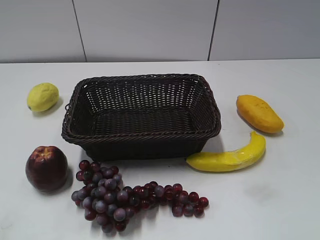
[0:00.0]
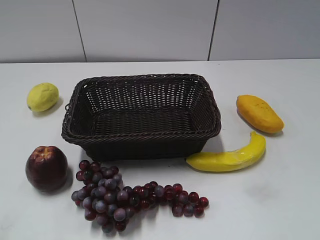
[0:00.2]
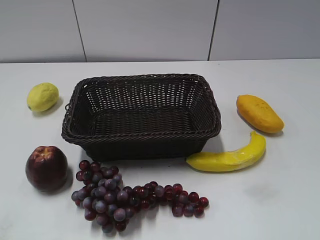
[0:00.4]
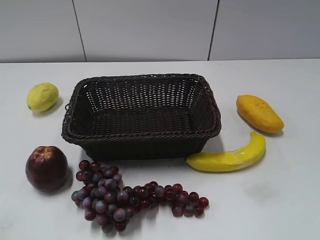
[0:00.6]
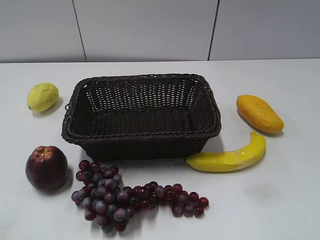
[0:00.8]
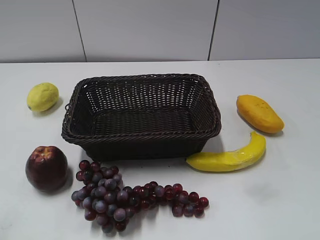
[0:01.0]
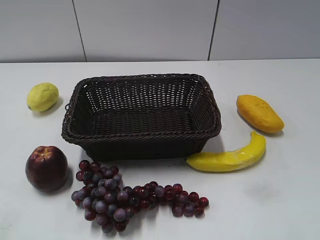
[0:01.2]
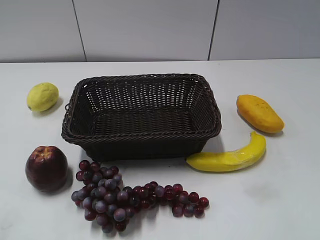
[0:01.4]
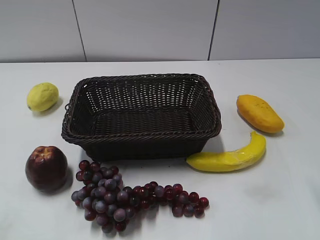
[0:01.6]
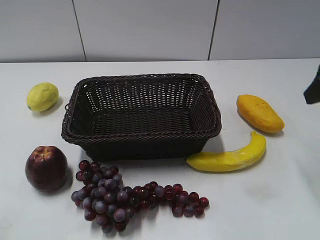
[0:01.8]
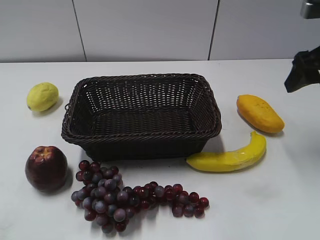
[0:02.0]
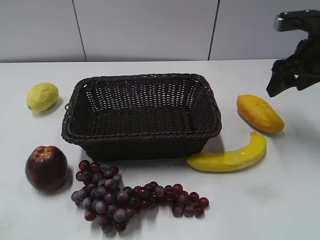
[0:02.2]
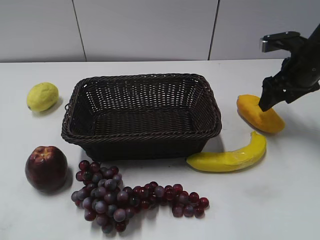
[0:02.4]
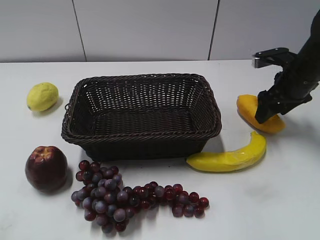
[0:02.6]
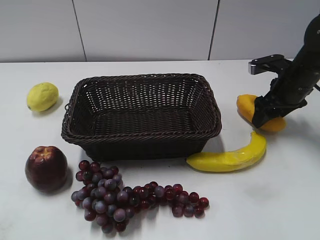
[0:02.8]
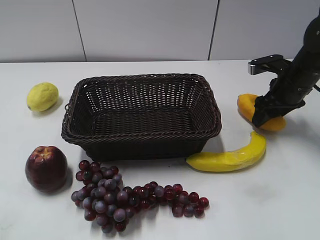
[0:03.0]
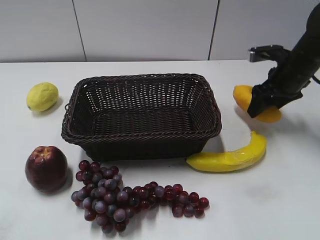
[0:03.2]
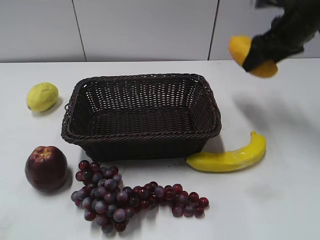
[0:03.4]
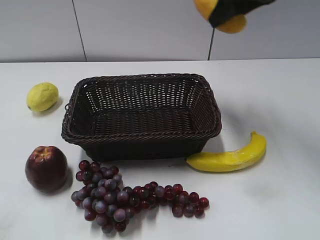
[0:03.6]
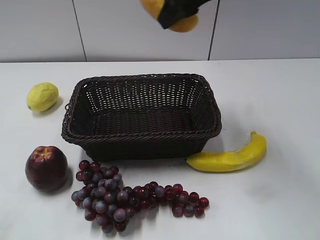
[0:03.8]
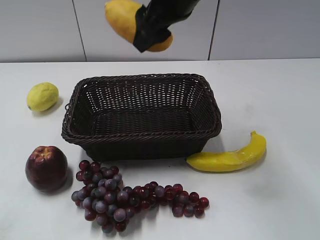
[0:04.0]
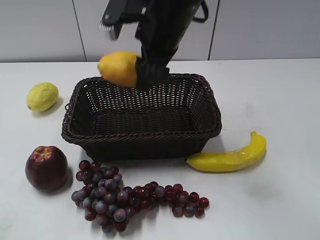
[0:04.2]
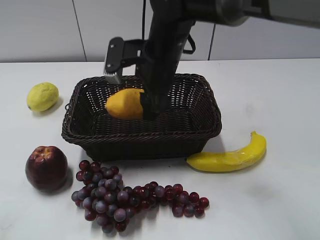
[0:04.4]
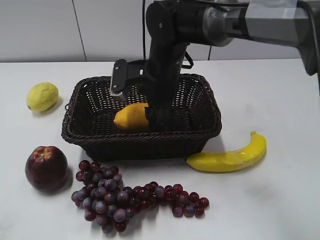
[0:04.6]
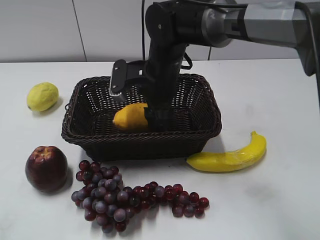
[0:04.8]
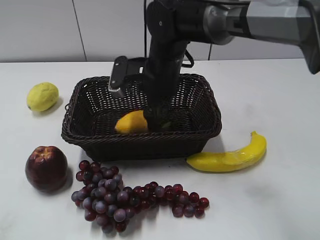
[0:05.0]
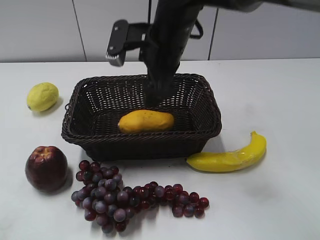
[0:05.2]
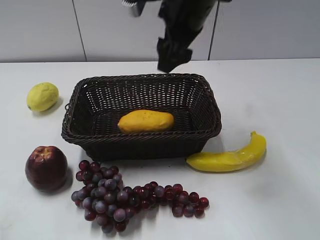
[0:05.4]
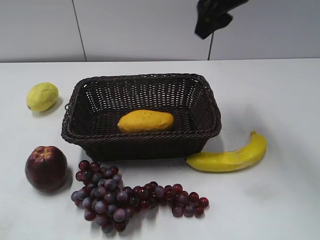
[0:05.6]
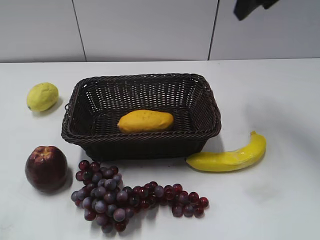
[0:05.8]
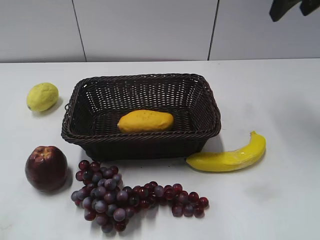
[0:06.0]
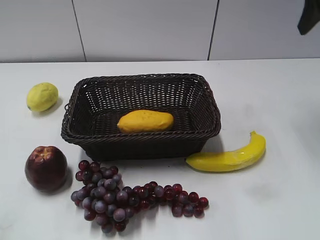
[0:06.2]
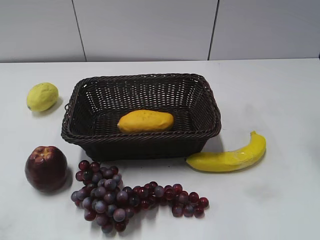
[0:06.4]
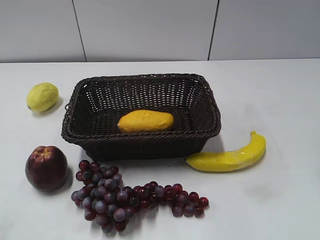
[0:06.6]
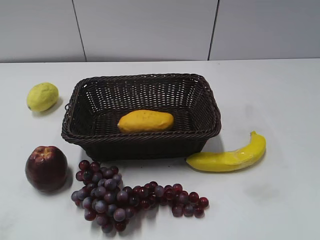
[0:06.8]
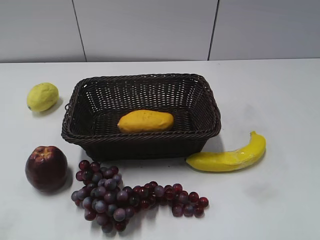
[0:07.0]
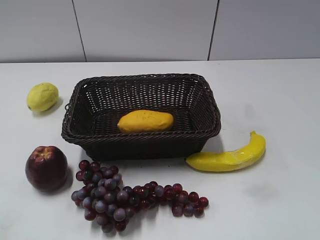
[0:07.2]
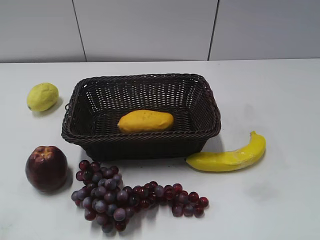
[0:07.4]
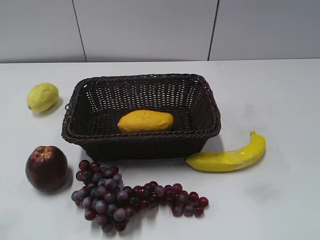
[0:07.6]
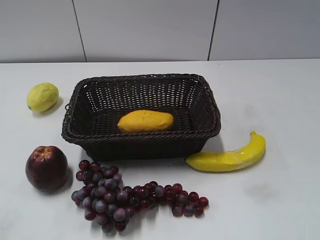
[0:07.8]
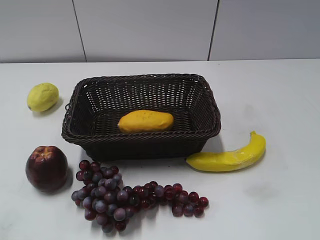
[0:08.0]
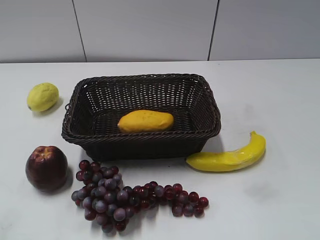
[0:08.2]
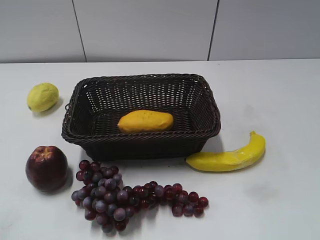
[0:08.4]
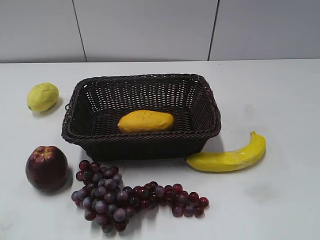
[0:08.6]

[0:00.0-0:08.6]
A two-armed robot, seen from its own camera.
Step, 0:01.8 to 0:02.8: Grasp the mango with right gripper.
Step, 0:03.2 to 0:05.0: Place the mango in the basket with right gripper.
0:01.4 to 0:02.8: The right gripper travels forward and downward by approximately 30 cm.
0:02.8 to 0:04.4: The right gripper goes approximately 25 cm to the left, and closes its fingers.
0:04.4 to 0:05.8: The right gripper travels to the right and upward by about 25 cm, and opens and closes again.
0:05.8 to 0:07.2: The right gripper heads backward, covering roughly 30 cm, and opens up.

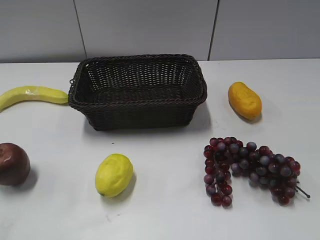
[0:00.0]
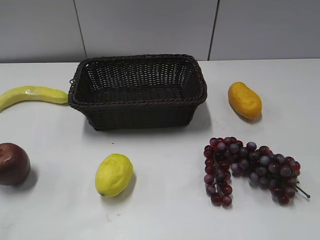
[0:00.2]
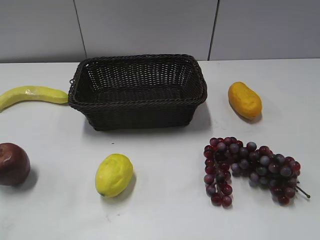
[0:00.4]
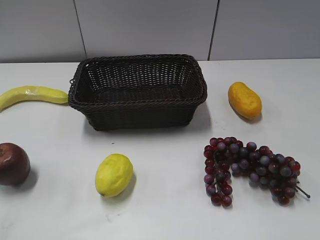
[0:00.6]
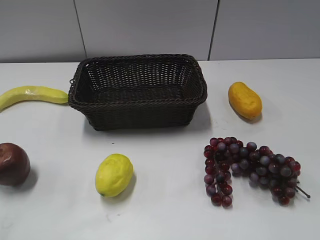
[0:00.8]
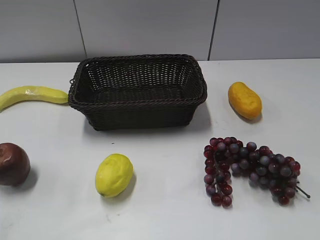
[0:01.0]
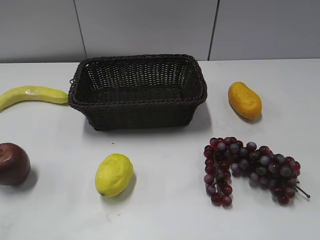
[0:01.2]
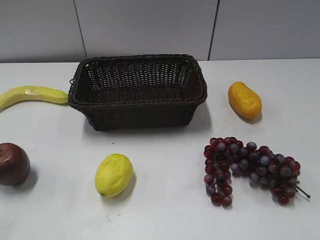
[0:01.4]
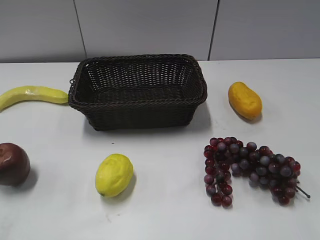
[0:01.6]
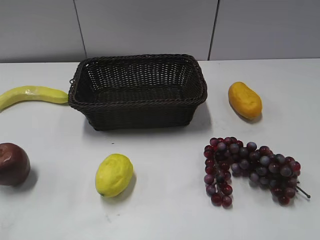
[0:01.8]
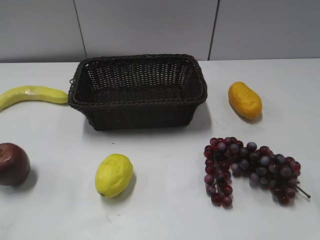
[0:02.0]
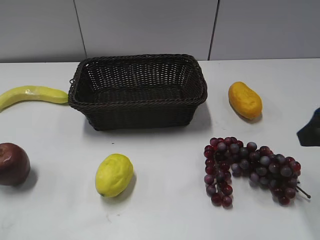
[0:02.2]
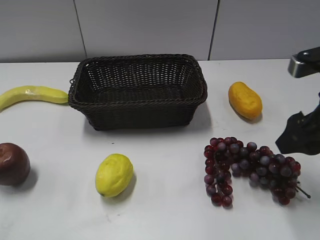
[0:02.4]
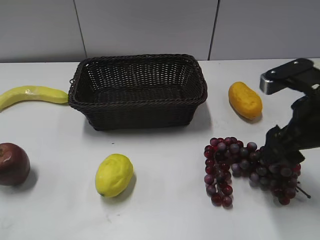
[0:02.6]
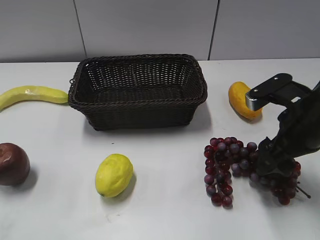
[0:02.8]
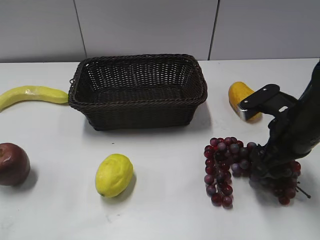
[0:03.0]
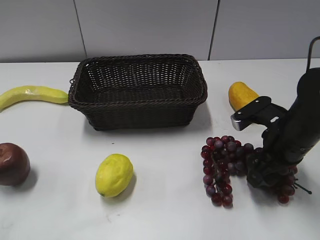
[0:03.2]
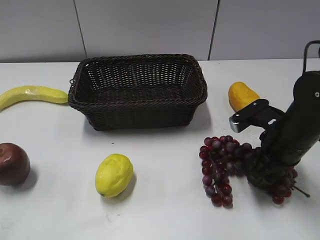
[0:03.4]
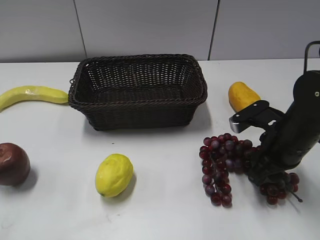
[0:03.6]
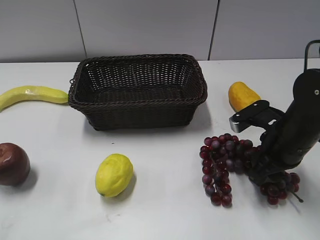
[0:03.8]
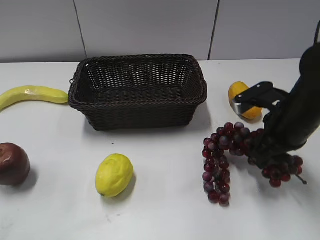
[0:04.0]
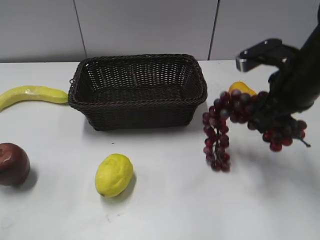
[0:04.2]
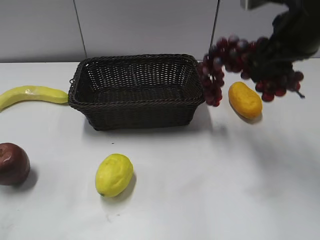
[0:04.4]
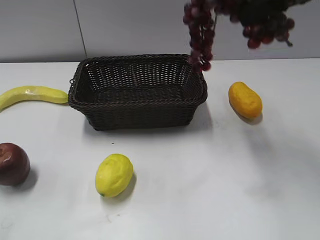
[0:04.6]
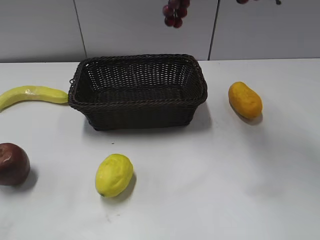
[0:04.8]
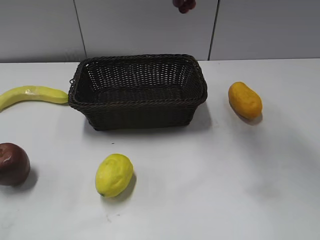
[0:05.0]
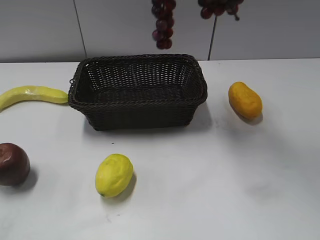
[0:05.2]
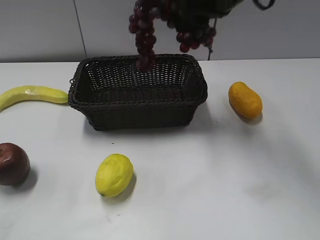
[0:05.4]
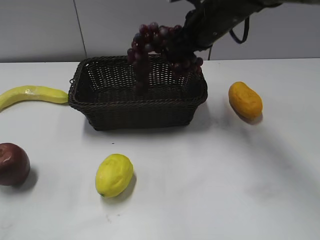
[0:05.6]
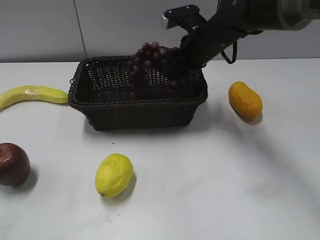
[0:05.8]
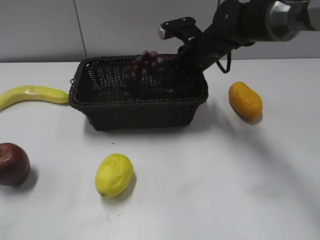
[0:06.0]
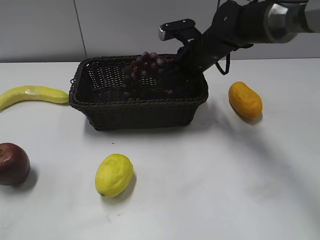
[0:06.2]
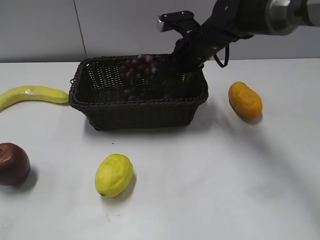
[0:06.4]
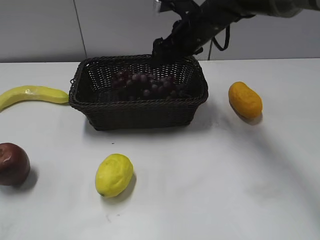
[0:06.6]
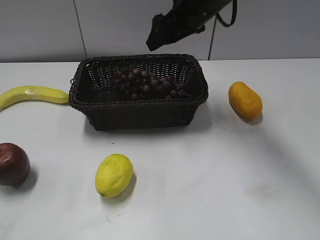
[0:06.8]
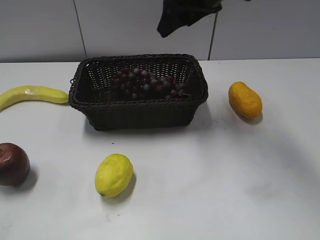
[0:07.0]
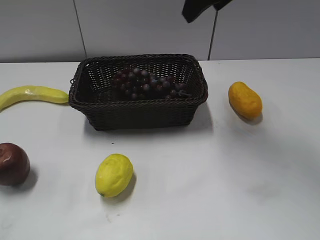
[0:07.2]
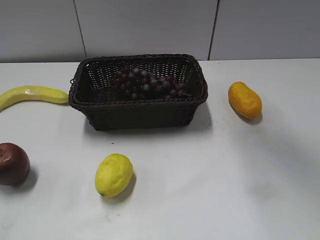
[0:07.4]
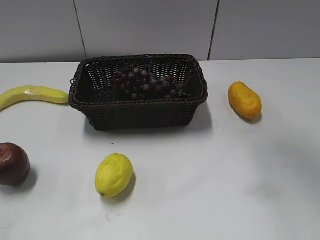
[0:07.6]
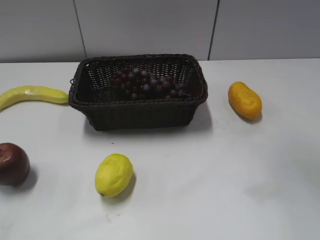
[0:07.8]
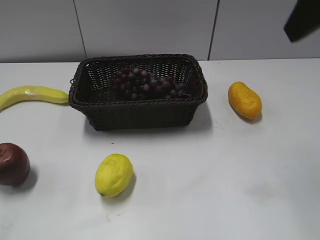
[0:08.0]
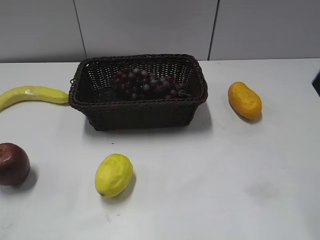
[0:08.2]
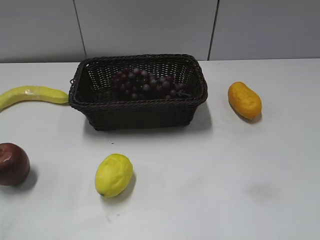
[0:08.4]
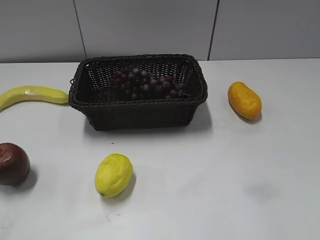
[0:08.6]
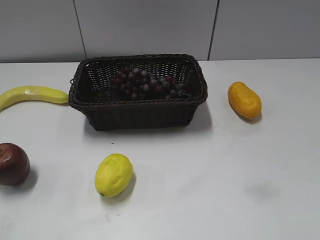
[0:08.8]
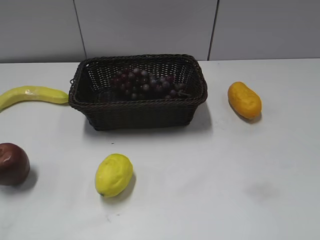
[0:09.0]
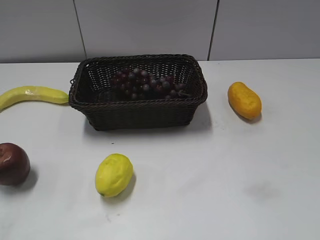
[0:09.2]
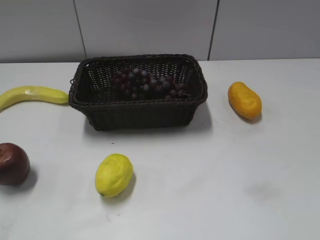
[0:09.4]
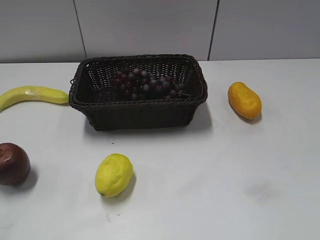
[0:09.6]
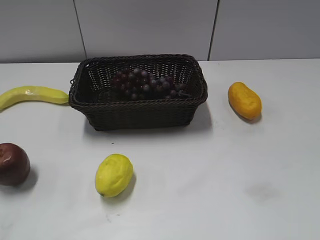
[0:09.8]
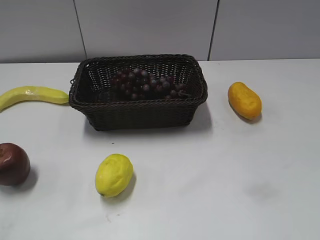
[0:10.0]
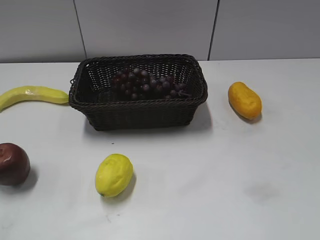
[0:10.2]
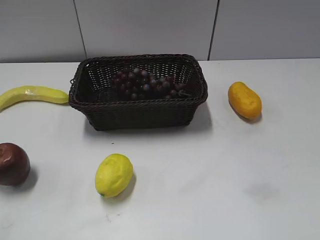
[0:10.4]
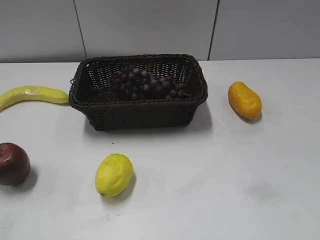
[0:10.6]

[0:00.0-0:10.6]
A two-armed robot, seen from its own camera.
Step, 0:02.0 to 0:04.0: Grasp the grape with right gripper.
Step, 0:04.2 to 0:06.6: Place the grape in the basket with right gripper.
0:01.6 to 0:03.0: The right gripper heads forward, downward and to the left, covering some 20 cm.
0:03.0 to 0:04.6: The right gripper is displaced upward by roughly 25 cm, and closes up.
0:04.6 to 0:06.0: The right gripper goes some 25 cm downward, forward and to the left.
0:06.0 to 0:07.6: The right gripper travels upward and backward by approximately 30 cm, and opens.
0:07.6 to 0:09.0: The right gripper moves backward, to the right and downward, approximately 30 cm.
